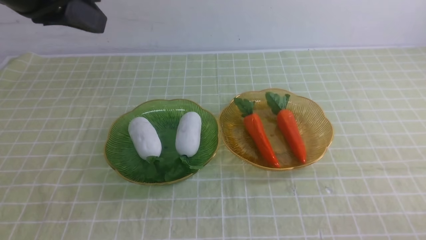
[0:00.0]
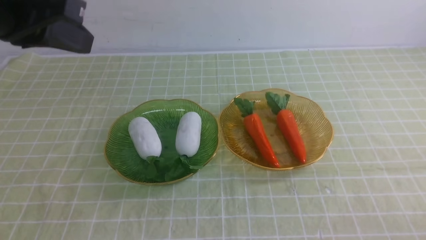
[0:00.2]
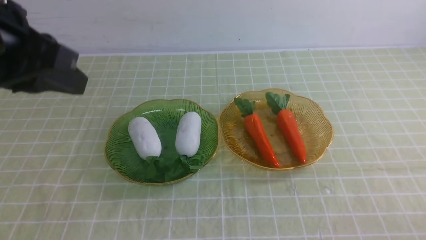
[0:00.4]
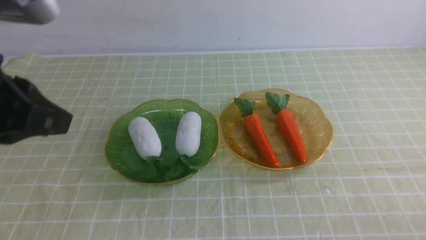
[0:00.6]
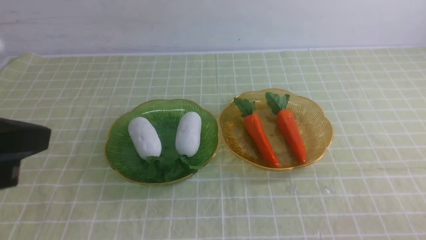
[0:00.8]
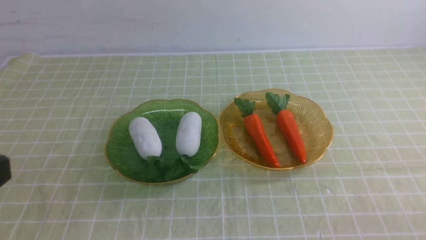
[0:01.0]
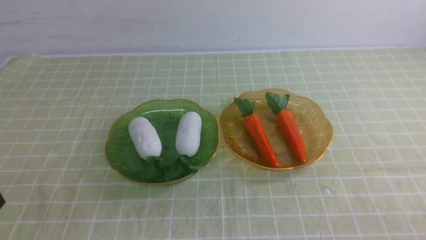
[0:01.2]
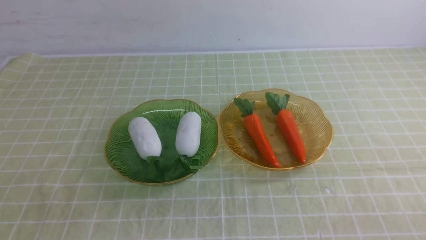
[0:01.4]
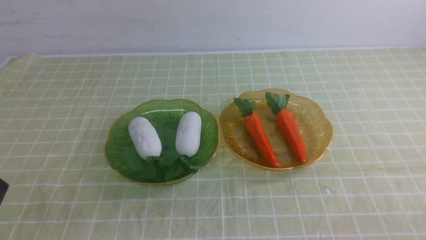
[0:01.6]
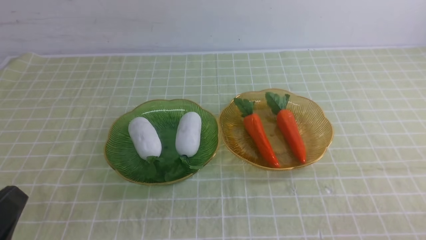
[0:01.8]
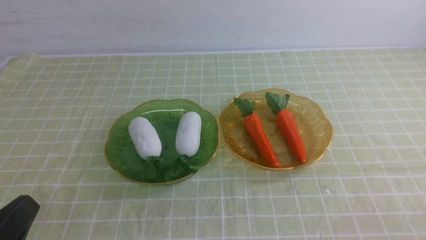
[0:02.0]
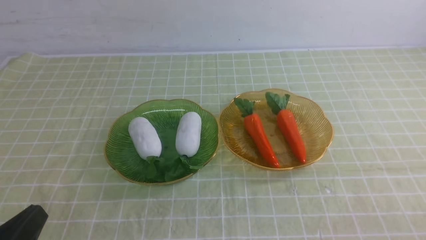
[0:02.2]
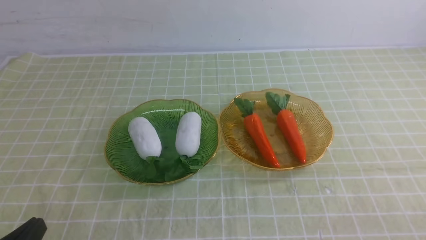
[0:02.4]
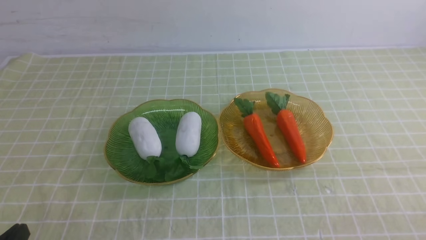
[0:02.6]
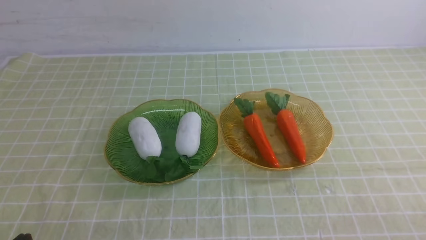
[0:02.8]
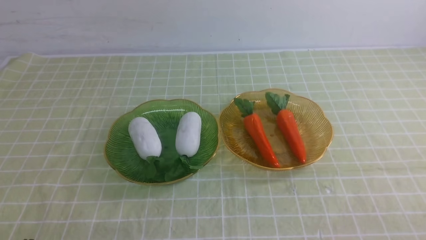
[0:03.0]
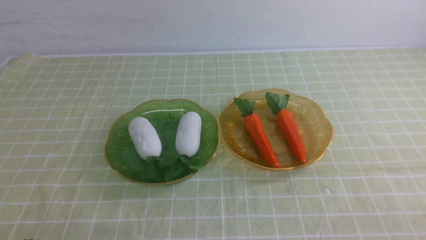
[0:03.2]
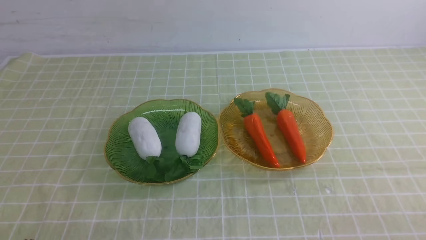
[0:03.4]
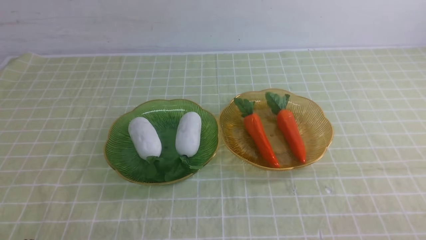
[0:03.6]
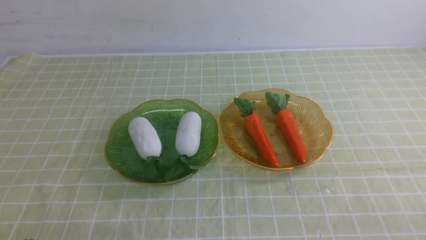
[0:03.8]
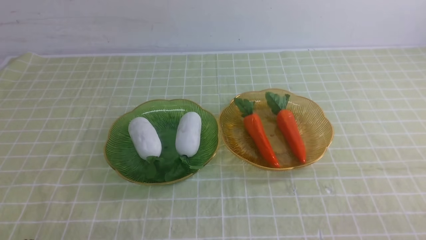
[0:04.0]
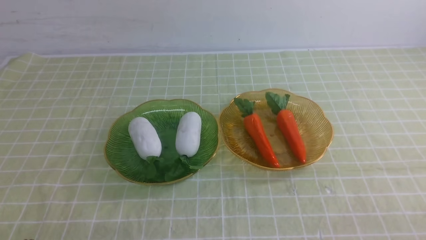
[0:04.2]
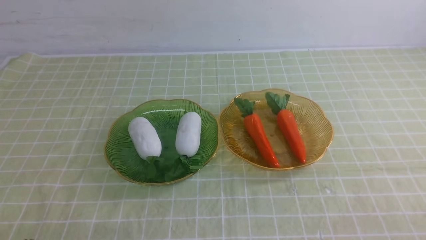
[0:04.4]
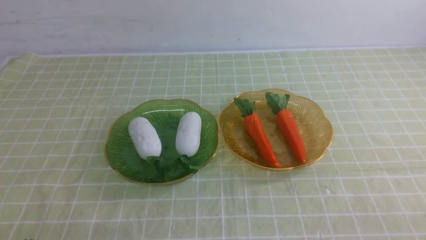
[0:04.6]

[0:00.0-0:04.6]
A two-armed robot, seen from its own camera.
0:00.0 to 0:01.6: The left gripper travels backward and downward by roughly 30 cm.
0:03.0 to 0:04.6: The two grippers keep their place.
